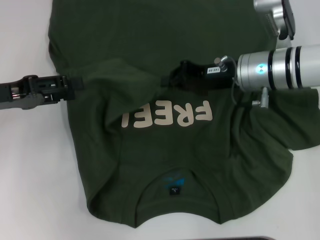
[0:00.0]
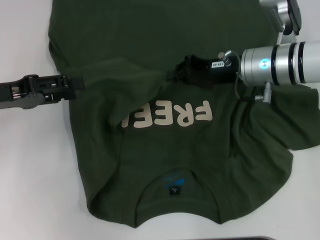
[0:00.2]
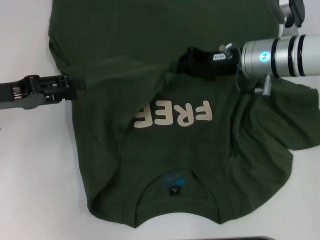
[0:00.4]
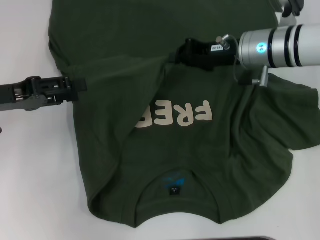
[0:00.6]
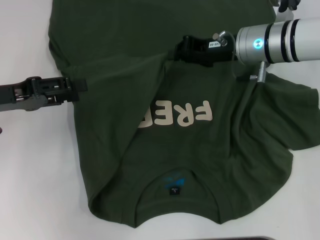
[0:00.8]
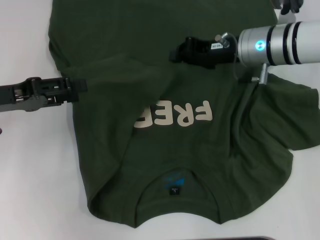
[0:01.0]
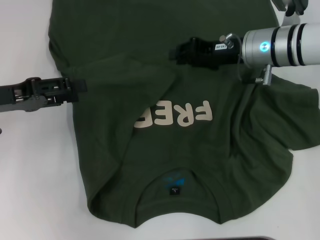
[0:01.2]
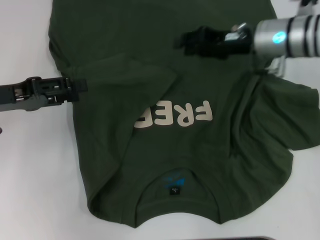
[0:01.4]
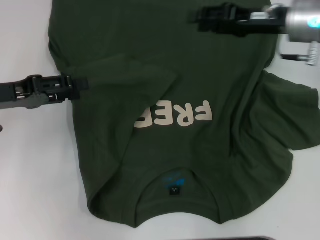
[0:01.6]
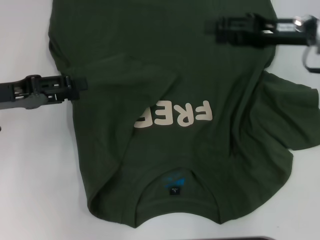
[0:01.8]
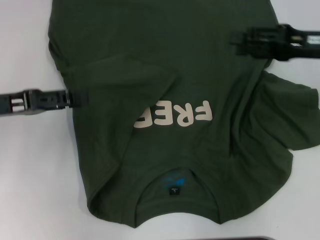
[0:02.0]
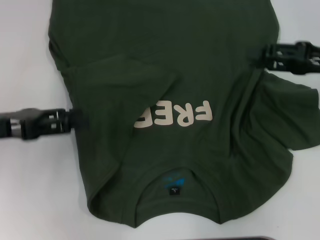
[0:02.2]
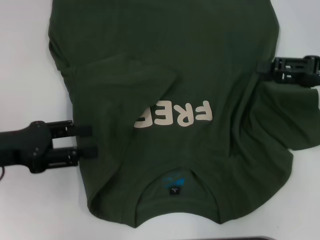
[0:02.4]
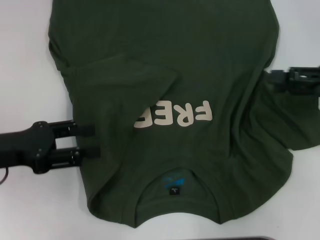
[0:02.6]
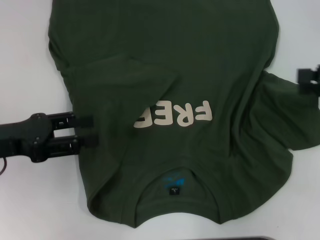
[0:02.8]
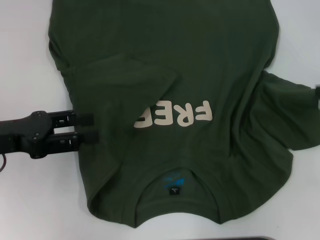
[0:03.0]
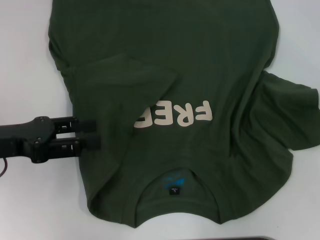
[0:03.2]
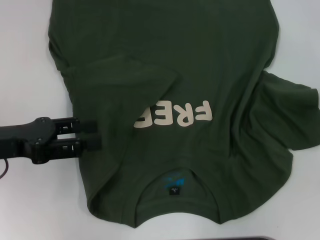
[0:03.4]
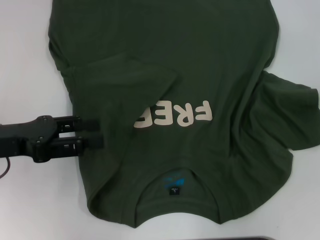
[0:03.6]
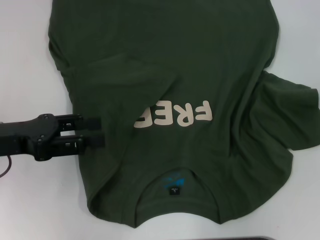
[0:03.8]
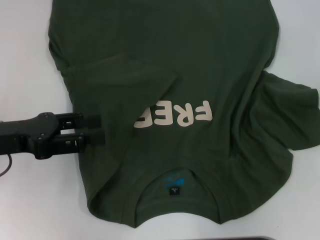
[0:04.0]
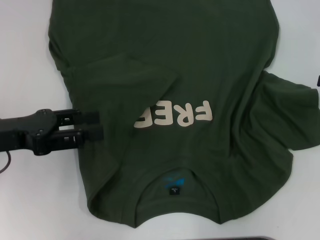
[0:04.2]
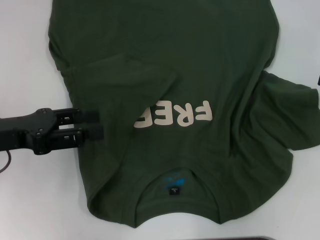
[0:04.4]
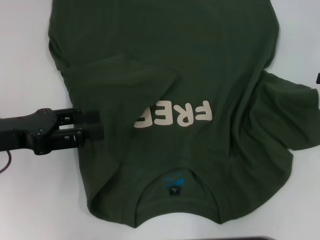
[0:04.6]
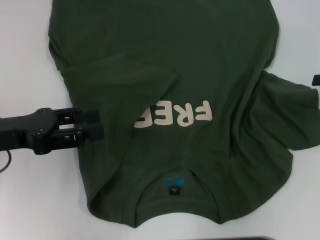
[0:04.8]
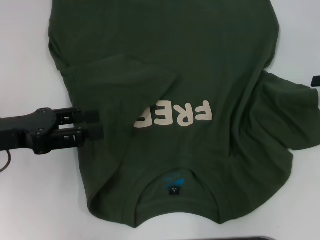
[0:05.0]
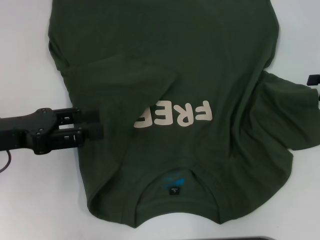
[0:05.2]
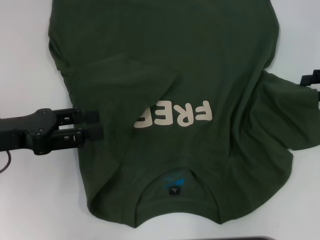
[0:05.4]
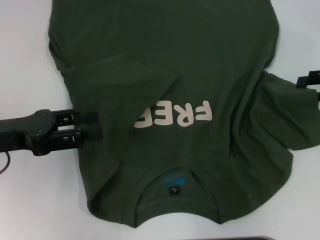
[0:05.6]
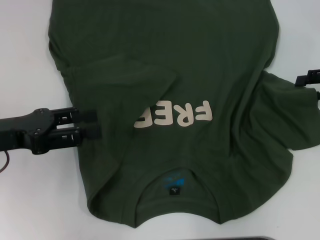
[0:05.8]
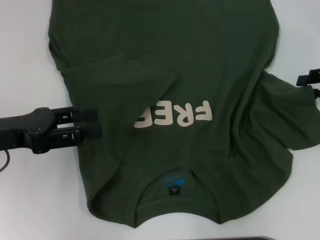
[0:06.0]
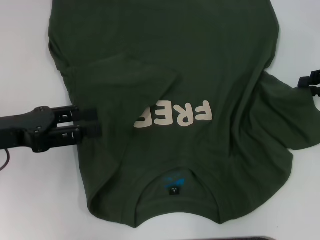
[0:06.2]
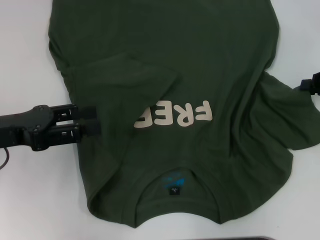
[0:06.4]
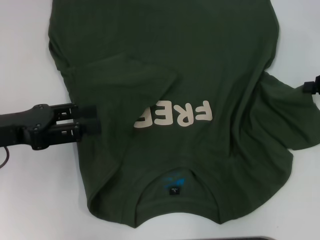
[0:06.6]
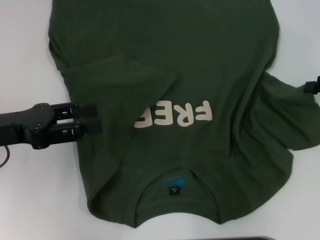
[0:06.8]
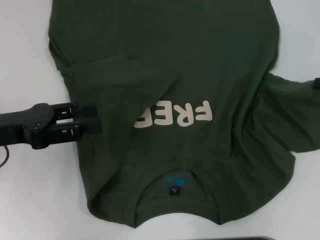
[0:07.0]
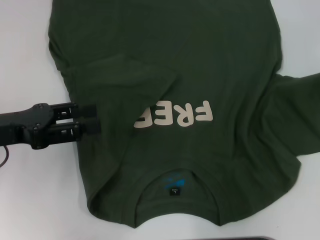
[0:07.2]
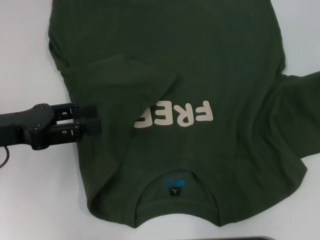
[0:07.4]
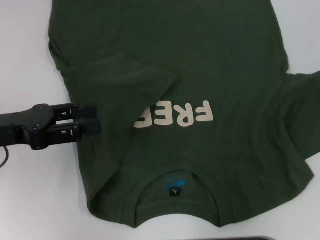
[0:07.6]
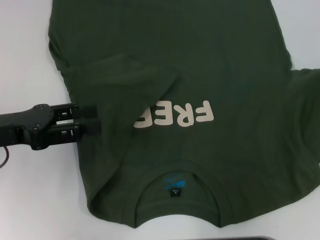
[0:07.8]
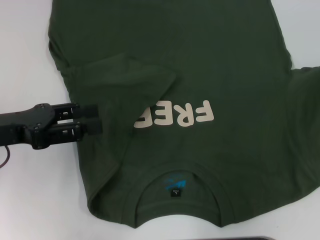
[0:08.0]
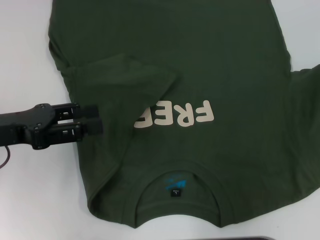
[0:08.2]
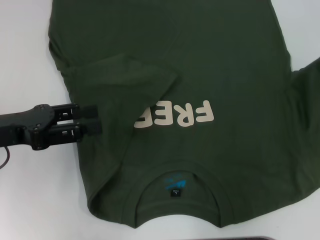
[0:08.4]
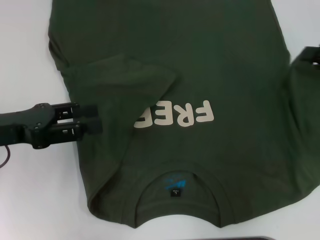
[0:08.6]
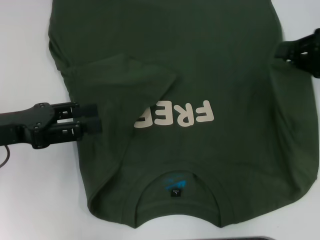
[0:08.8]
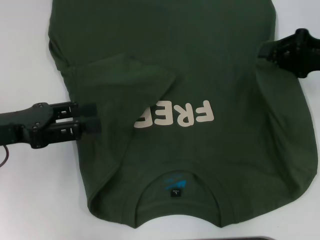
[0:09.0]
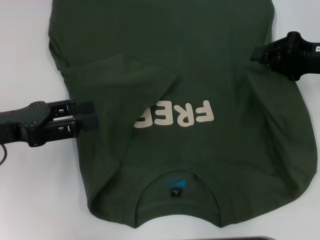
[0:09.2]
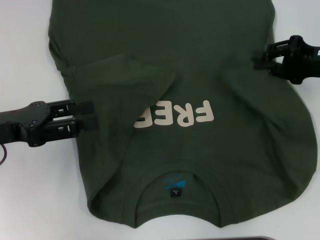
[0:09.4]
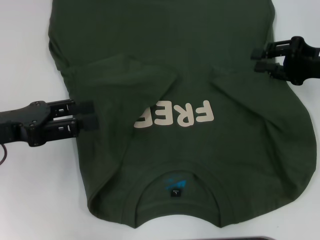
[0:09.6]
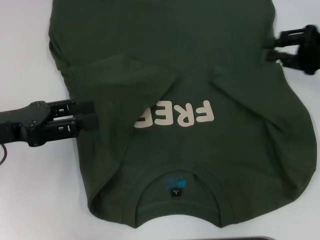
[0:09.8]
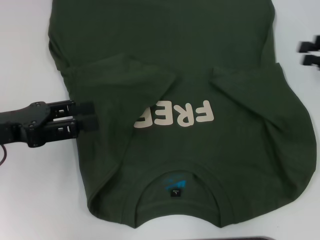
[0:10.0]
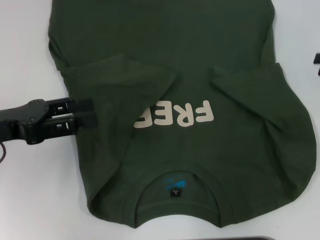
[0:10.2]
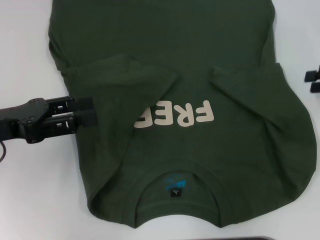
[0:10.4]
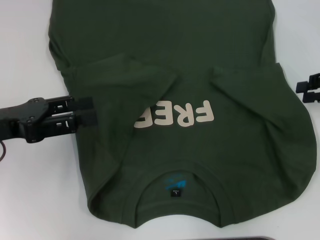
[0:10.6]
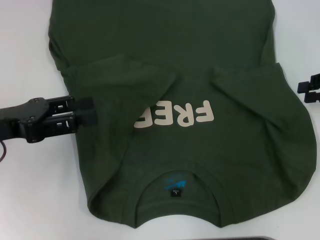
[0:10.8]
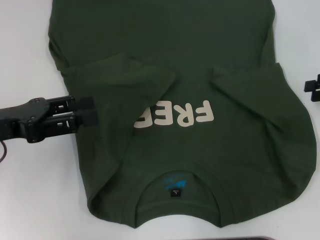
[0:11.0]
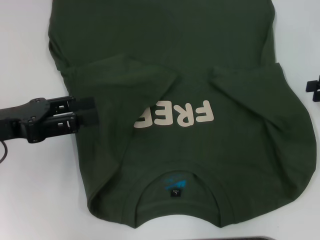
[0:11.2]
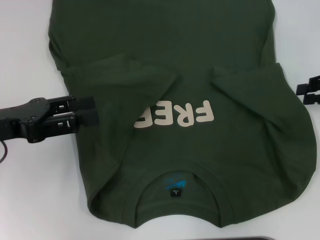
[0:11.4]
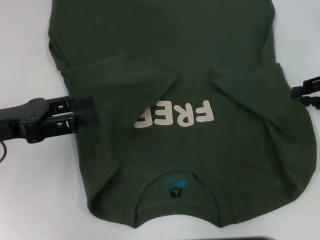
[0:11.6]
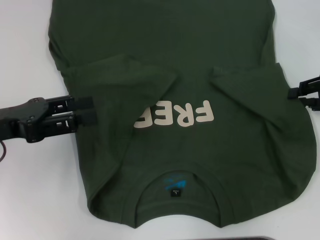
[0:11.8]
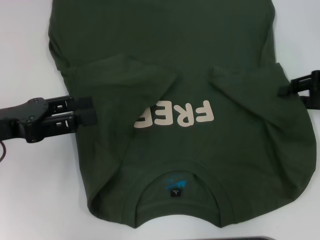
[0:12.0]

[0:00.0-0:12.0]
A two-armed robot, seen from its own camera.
0:00.0 to 0:01.6: The right gripper is displaced upward and to the right by roughly 10 cm, and opens its fingers.
0:01.6 to 0:03.0: The left gripper ends up about 5 cm from where it was. Meanwhile the right gripper goes about 20 cm to the right and backward.
0:03.0 to 0:04.4: The grippers stay close to where they were, moving slightly.
0:04.4 to 0:06.0: The grippers make only small movements.
0:06.0 to 0:07.6: The right gripper changes place by approximately 5 cm, and closes its fingers.
0:07.6 to 0:09.0: The right gripper travels to the left by roughly 10 cm.
0:09.0 to 0:10.4: The right gripper heads to the right, covering approximately 5 cm, and opens.
0:10.4 to 0:12.0: The grippers stay close to where they were, moving slightly.

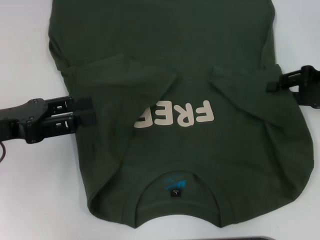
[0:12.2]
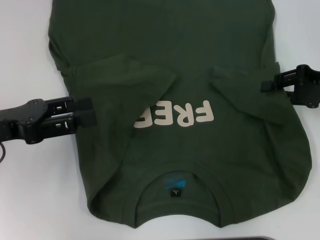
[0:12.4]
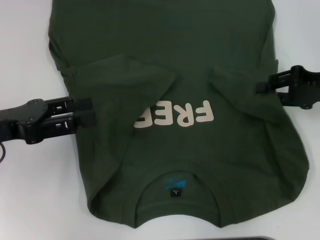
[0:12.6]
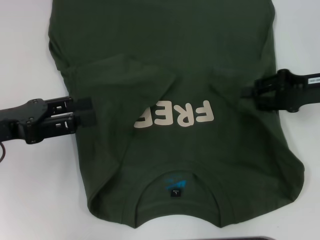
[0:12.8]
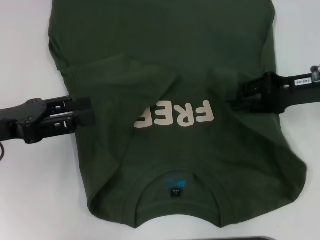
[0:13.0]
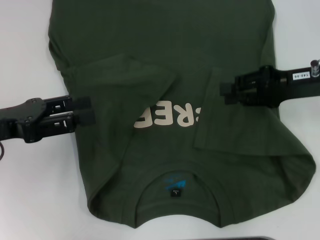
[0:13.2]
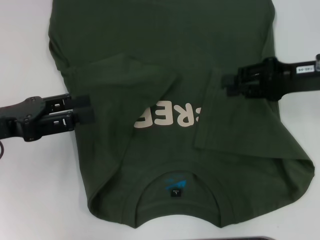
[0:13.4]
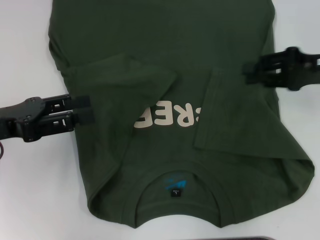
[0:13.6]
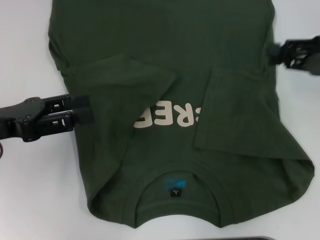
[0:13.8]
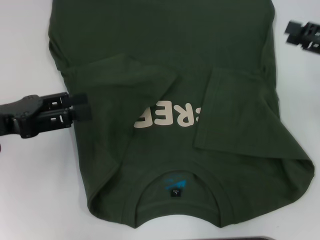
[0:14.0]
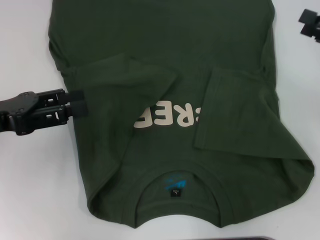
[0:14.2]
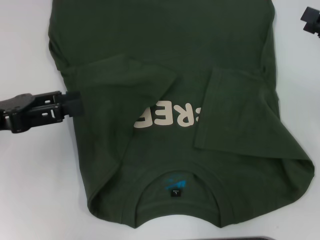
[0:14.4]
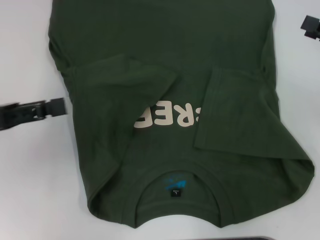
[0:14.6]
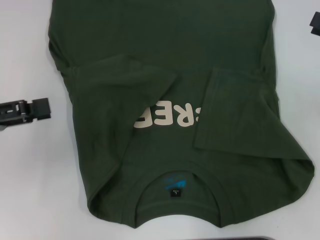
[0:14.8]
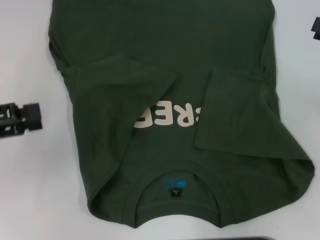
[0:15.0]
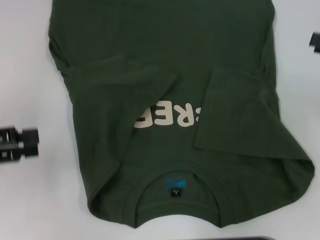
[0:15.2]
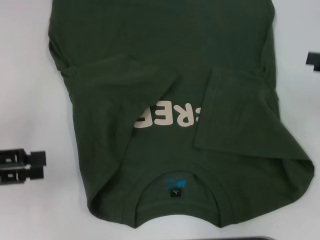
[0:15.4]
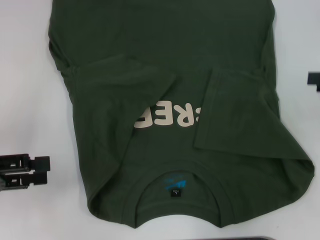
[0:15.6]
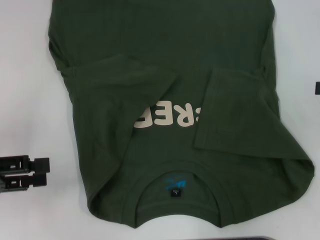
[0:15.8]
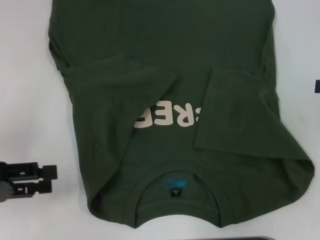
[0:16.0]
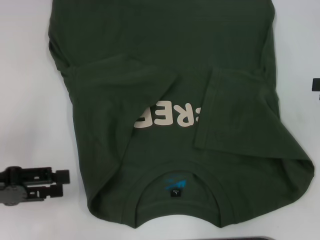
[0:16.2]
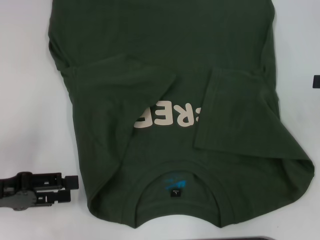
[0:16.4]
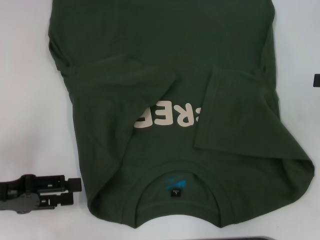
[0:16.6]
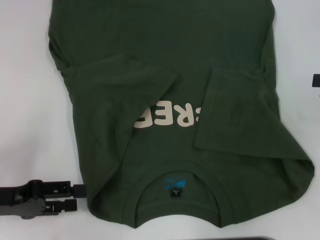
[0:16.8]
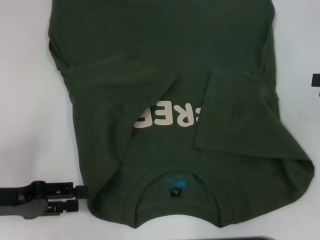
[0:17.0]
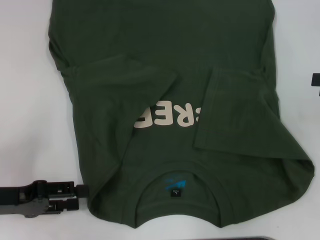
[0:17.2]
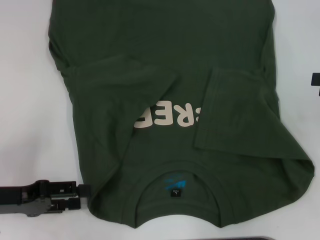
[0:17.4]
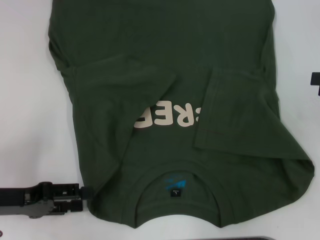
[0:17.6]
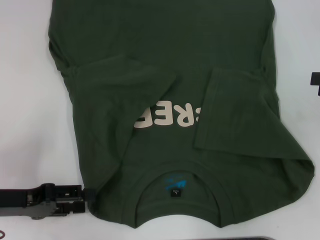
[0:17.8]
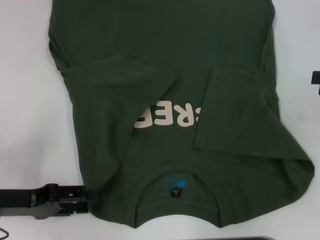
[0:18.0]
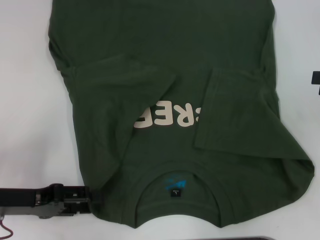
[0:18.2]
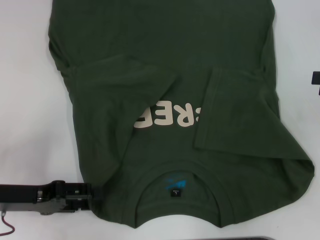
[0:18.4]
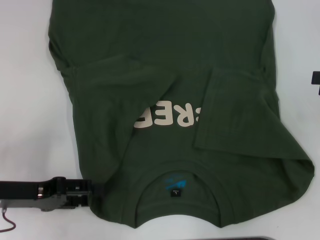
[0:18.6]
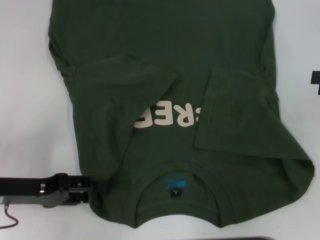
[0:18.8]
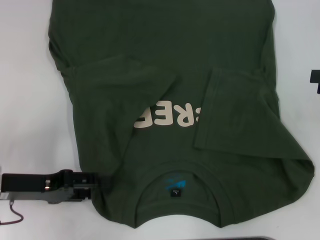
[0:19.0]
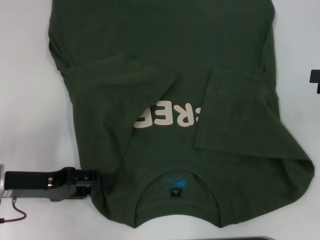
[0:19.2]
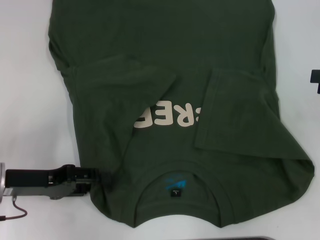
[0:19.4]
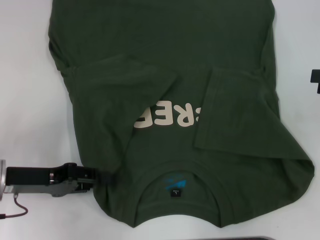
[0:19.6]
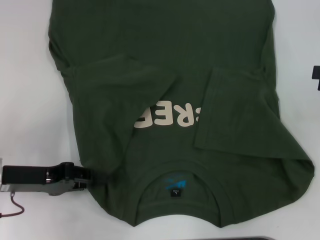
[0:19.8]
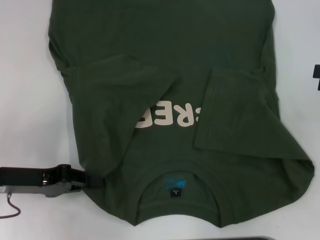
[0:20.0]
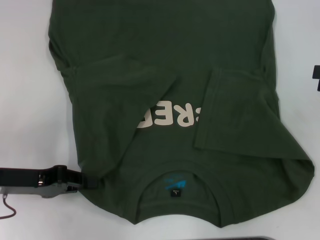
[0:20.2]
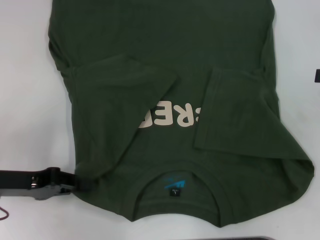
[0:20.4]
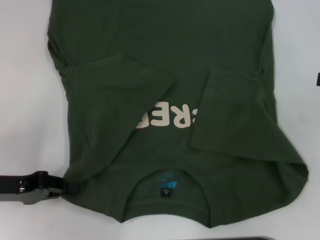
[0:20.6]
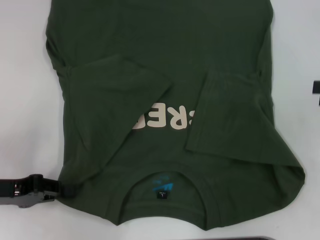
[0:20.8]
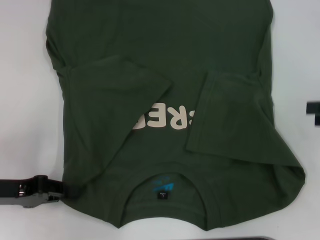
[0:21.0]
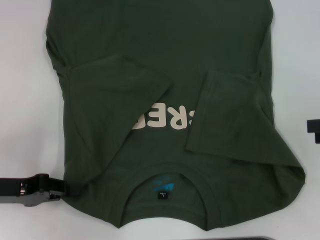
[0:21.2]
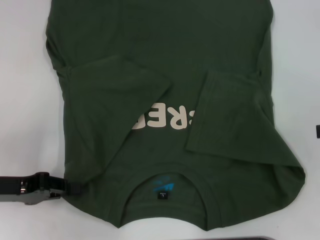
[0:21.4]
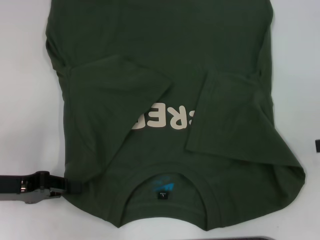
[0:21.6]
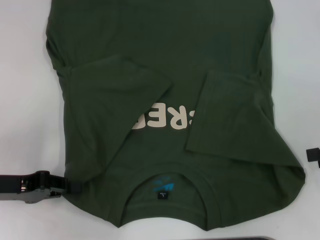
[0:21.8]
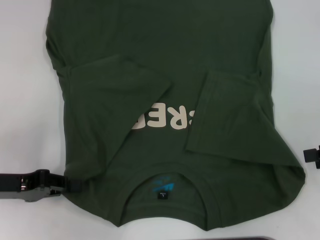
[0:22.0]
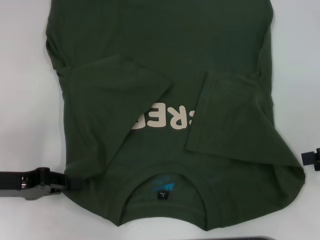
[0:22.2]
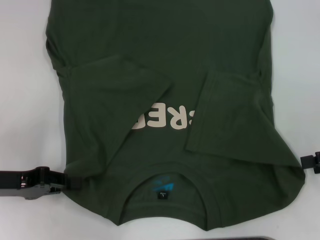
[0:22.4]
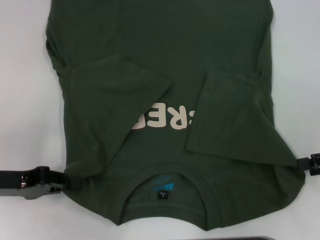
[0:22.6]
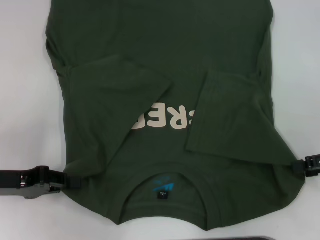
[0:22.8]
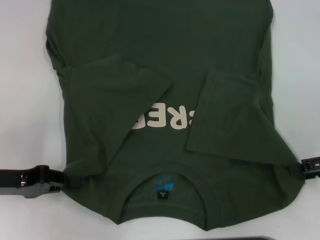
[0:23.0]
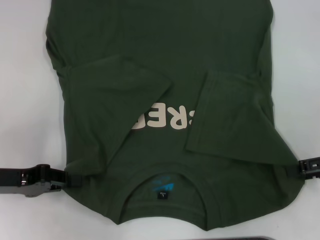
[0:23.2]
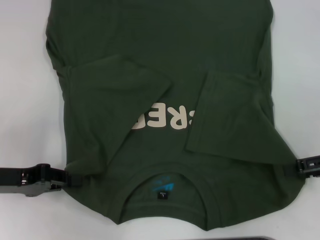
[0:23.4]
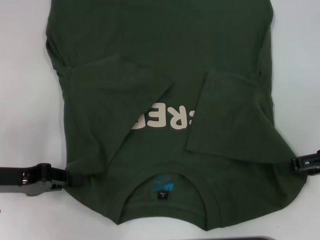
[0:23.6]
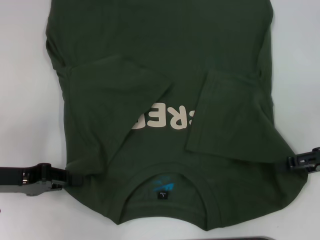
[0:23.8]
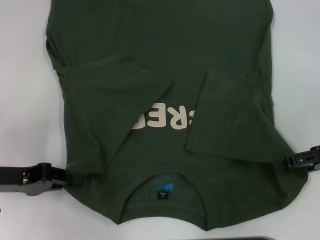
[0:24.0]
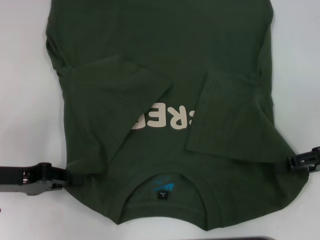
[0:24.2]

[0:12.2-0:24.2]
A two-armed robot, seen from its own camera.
Step, 0:13.6 to 0:19.8: Grab the bottom left corner with your left hand.
0:13.8 to 0:15.2: The right gripper changes place by roughly 5 cm, and opens up, while the left gripper moves to the left, some 5 cm.
0:15.2 to 0:16.6: The left gripper is displaced downward by some 5 cm.
0:16.6 to 0:18.2: The grippers make only small movements.
0:18.2 to 0:19.8: The left gripper closes.
0:19.8 to 0:21.2: The grippers move only a little.
0:21.2 to 0:24.2: The grippers move only a little.
